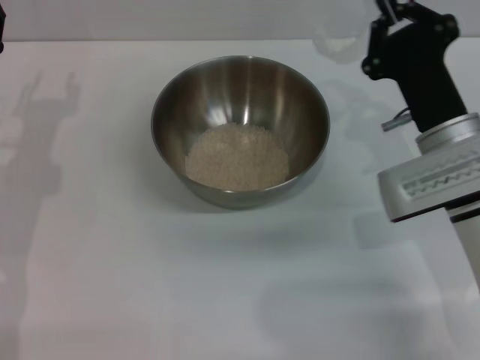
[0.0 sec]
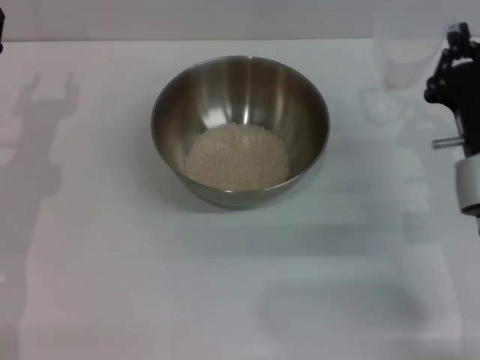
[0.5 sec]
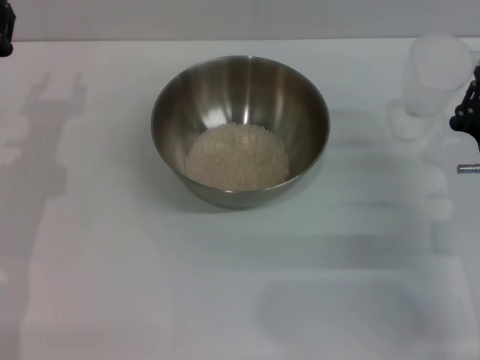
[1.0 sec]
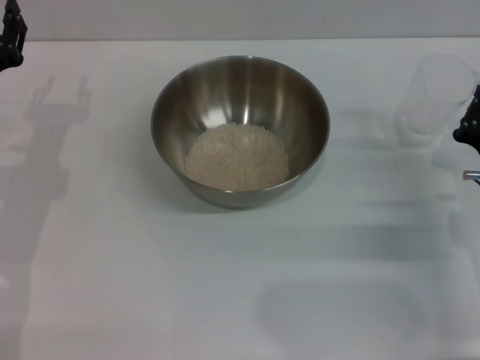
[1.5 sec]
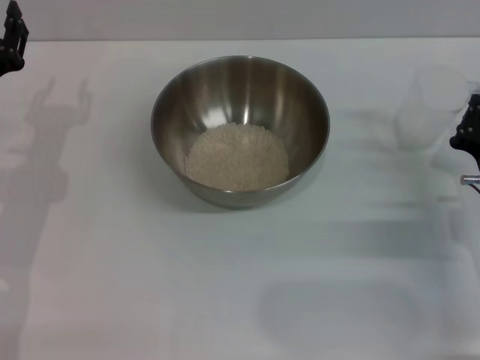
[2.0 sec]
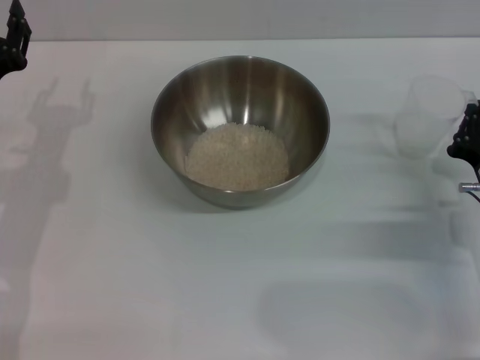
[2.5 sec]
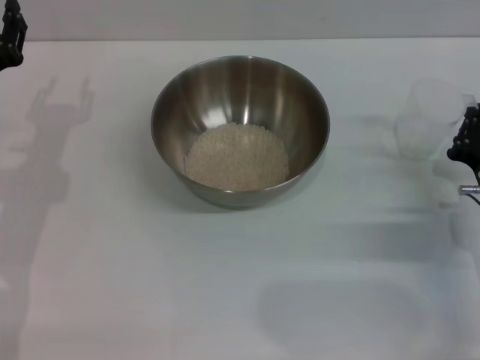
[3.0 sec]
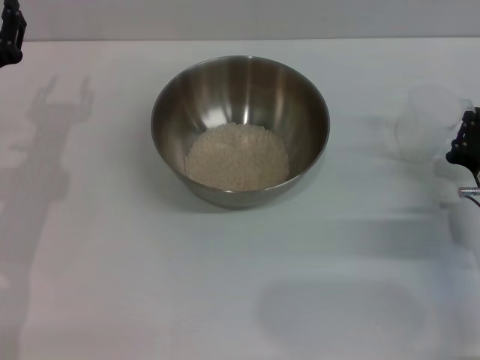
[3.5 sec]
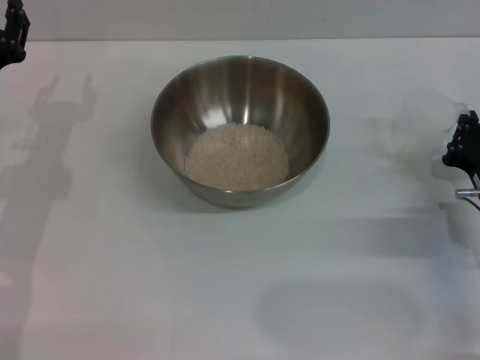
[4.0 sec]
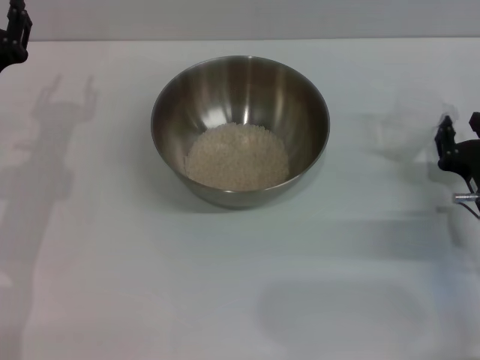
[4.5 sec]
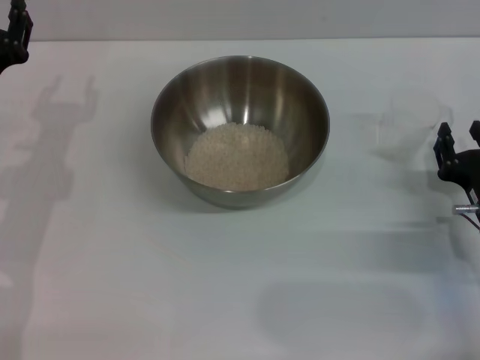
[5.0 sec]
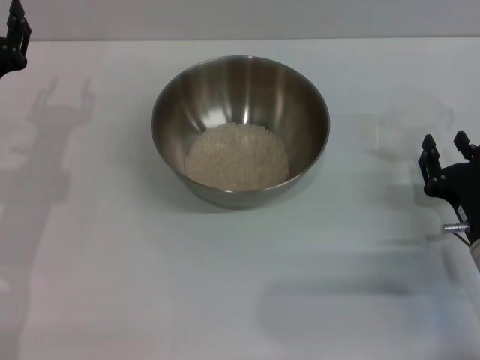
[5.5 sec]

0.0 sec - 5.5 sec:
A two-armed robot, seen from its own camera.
Task of the whole recording: Place the bowl in the middle of the table with one hand and pour the rice from the grain cup into it with the other hand.
Step, 0.0 sec - 5.5 sec: Place the cup on the table with the right gripper.
0.0 sec - 2.0 sec: The right gripper moves to the right and downward, approximately 10 cm.
2.0 sec - 3.5 sec: Neither gripper changes place.
3.5 sec - 5.5 sec: The right gripper opens up.
